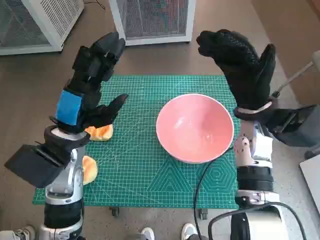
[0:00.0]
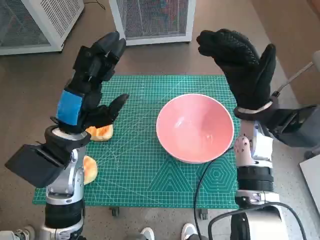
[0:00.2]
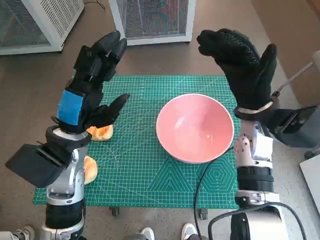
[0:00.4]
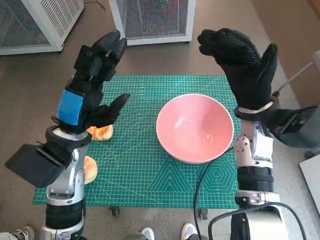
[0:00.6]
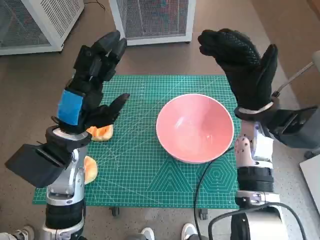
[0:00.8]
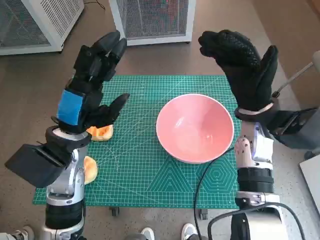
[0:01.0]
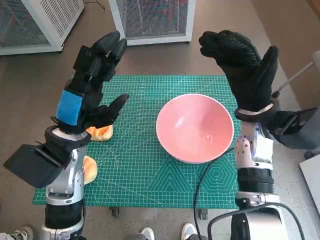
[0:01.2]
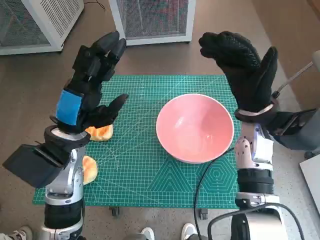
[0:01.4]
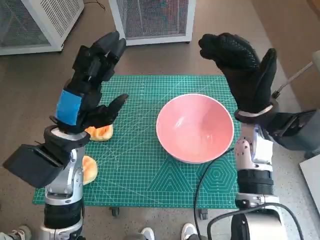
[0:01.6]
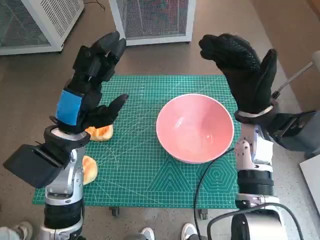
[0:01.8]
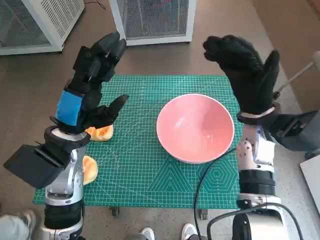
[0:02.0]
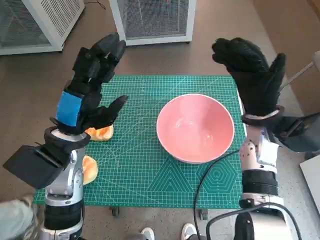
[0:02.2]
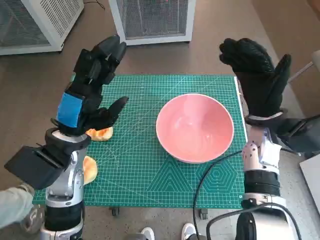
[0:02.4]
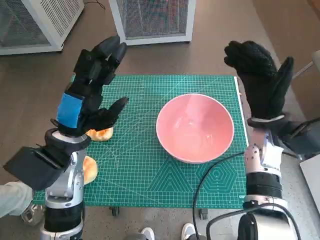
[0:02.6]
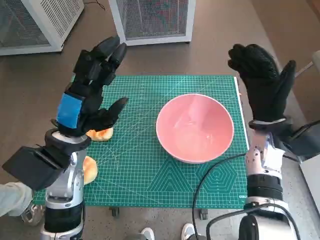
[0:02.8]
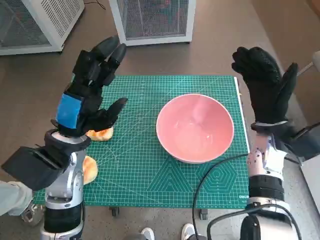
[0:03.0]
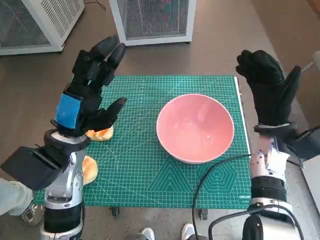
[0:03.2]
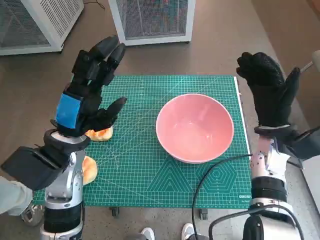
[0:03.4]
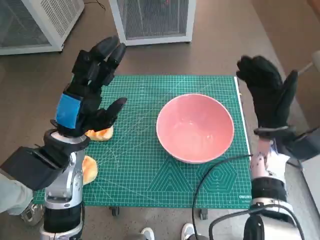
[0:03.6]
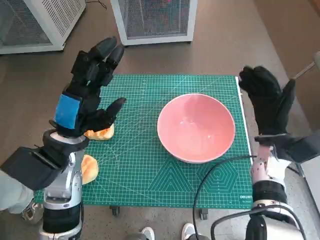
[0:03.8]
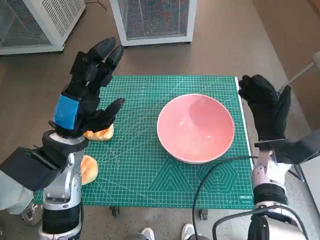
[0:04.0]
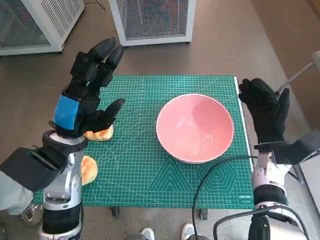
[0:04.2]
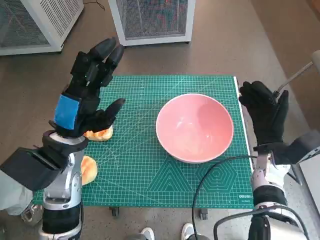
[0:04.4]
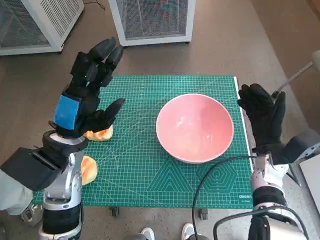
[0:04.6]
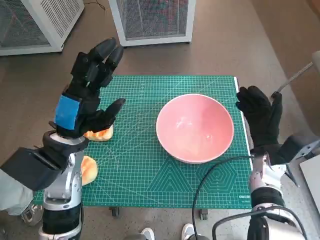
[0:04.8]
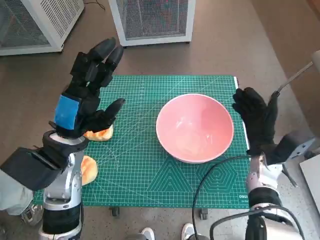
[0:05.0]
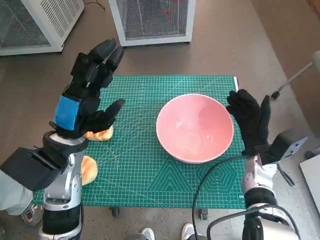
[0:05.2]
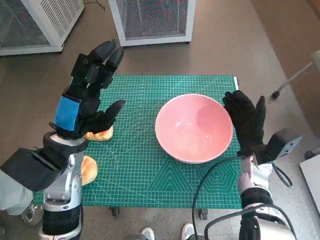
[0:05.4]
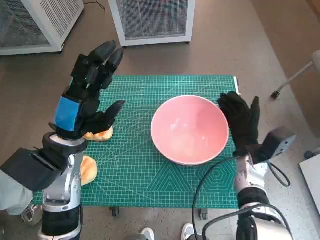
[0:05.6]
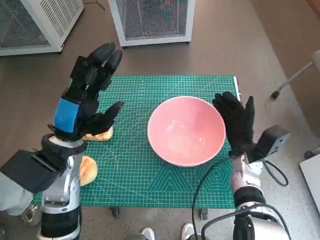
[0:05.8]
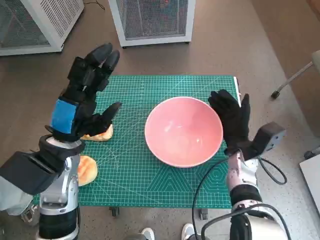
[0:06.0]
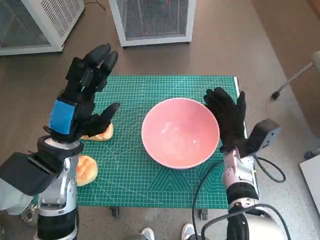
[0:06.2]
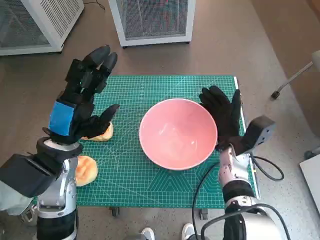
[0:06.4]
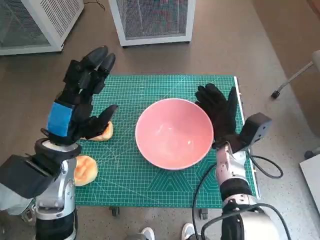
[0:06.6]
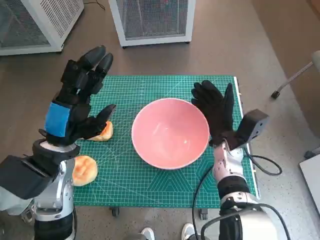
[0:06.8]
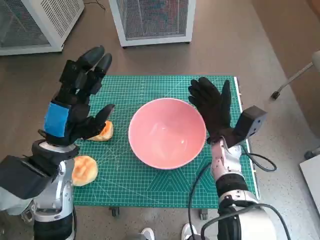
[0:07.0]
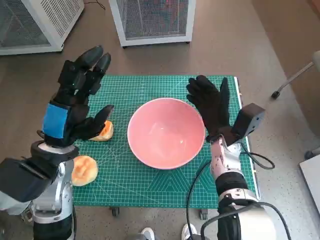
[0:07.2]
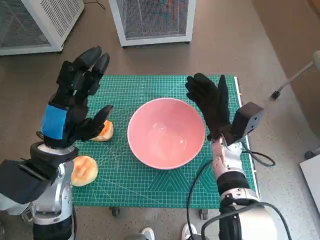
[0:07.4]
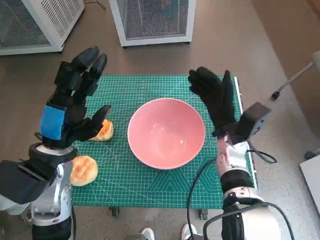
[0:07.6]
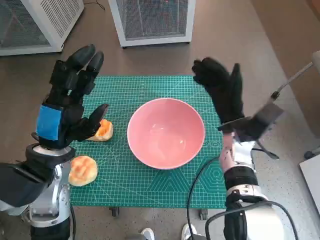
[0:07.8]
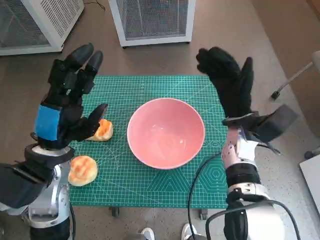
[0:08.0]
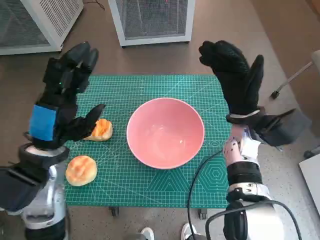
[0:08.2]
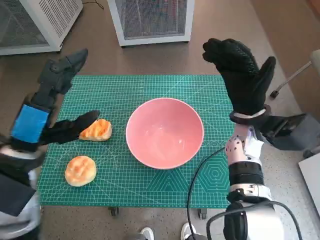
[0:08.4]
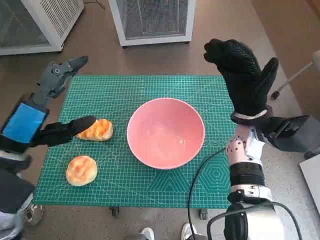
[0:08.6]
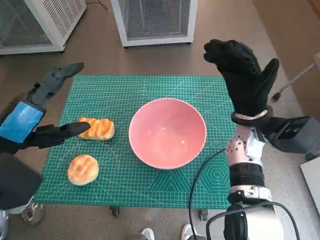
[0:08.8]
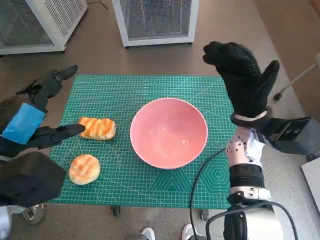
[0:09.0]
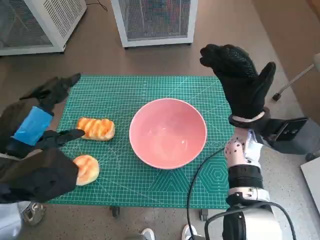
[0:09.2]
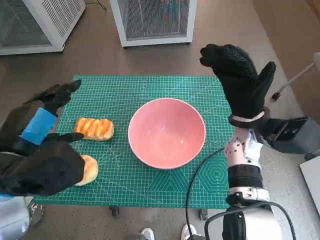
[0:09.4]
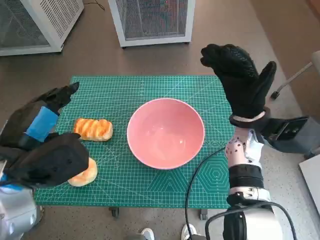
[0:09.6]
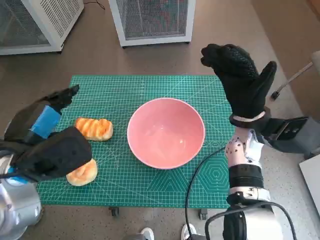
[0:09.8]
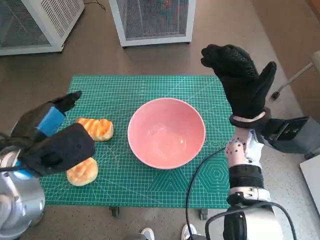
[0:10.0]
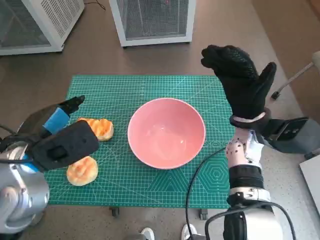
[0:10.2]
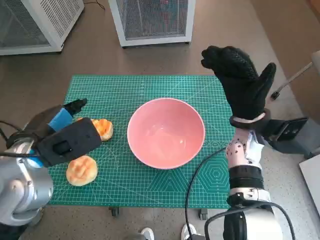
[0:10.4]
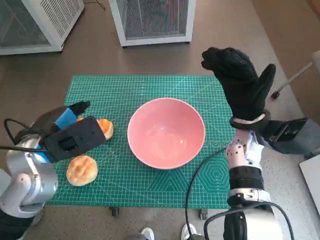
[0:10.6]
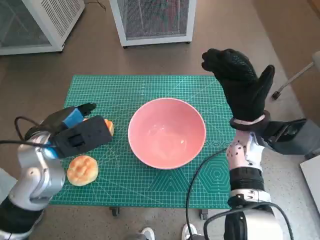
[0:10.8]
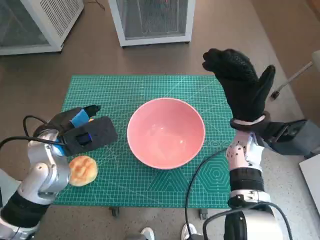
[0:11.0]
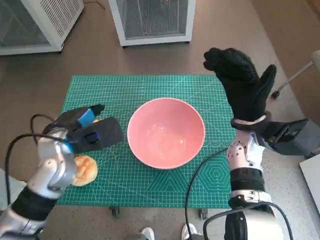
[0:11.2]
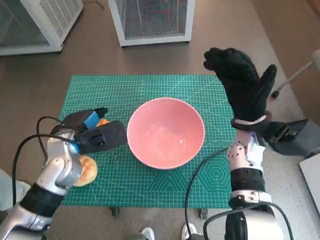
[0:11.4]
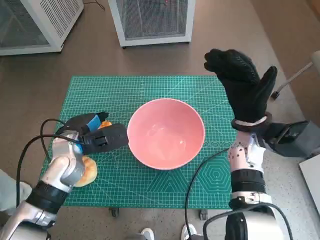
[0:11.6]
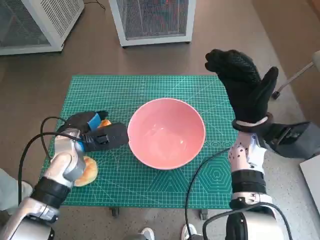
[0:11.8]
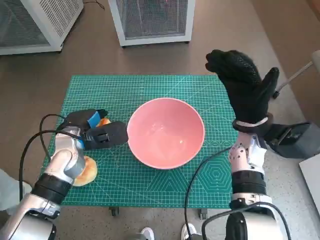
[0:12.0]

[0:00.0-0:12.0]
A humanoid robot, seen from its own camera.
Task of the whole recording: Push the bowl into the center of the table and put the bread into the bowl.
Step, 0:00.0 to 0:07.4: Move the pink bowl to the center of table with right hand.
0:01.6 to 0:03.0: The right hand ends up about 5 cm from where it was.
0:03.0 to 0:04.4: The right hand shifts roughly 5 cm downward.
0:04.4 to 0:06.0: The right hand goes about 5 cm to the left.
0:06.0 to 0:07.6: The right hand changes place by some 5 cm.
0:07.6 to 0:09.0: The left hand shifts some 10 cm upward and backward, while the right hand goes about 5 cm upward.
0:09.0 to 0:10.4: The left hand moves about 5 cm.
0:10.4 to 0:12.0: The left hand travels downward and forward by about 10 cm.

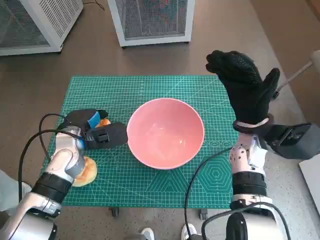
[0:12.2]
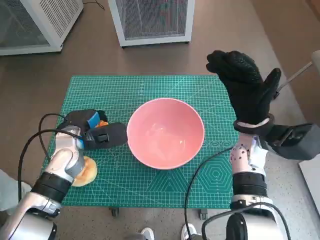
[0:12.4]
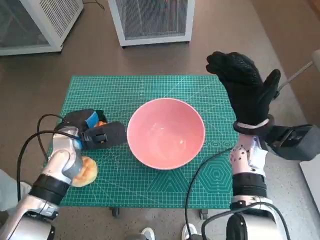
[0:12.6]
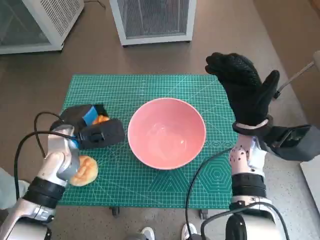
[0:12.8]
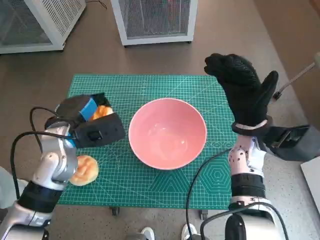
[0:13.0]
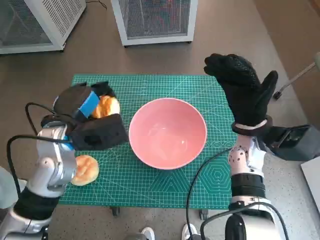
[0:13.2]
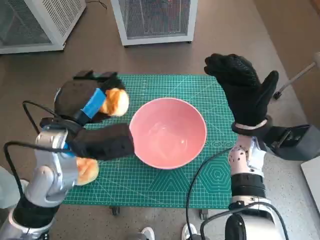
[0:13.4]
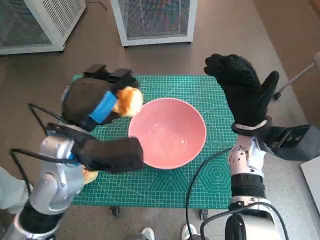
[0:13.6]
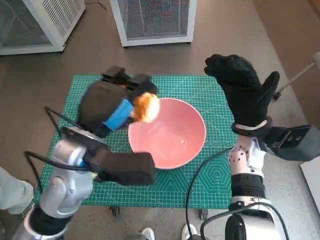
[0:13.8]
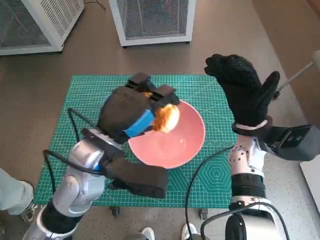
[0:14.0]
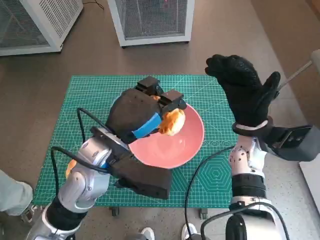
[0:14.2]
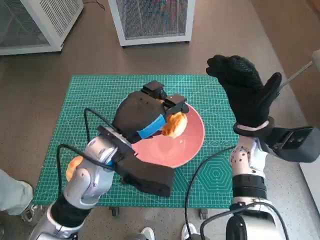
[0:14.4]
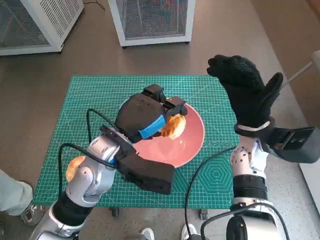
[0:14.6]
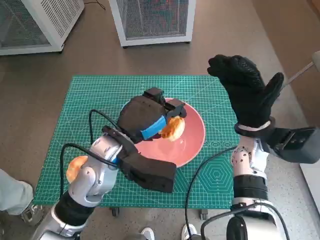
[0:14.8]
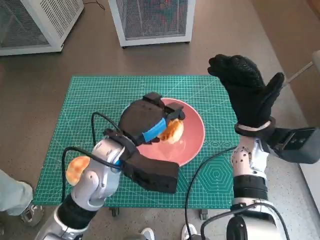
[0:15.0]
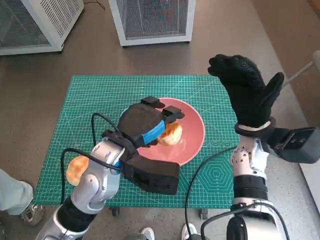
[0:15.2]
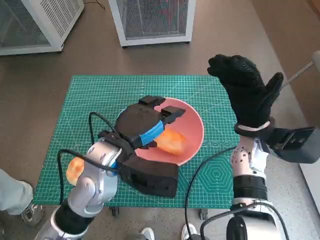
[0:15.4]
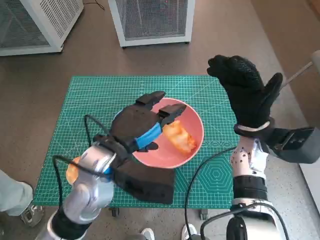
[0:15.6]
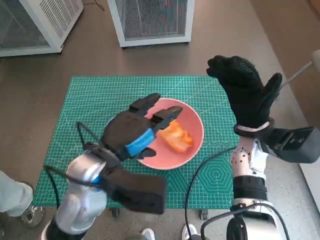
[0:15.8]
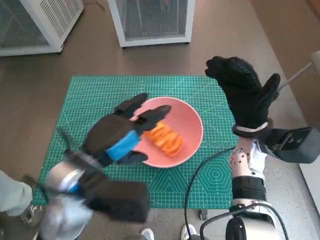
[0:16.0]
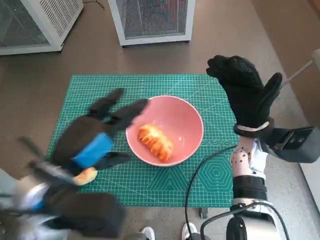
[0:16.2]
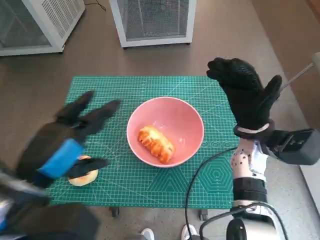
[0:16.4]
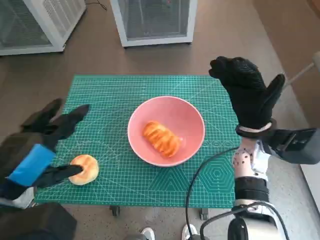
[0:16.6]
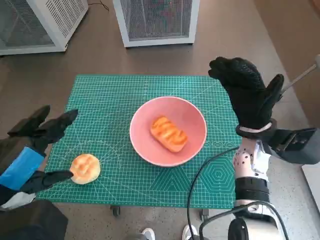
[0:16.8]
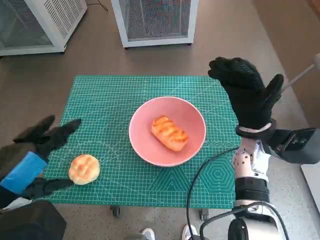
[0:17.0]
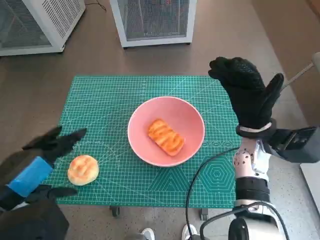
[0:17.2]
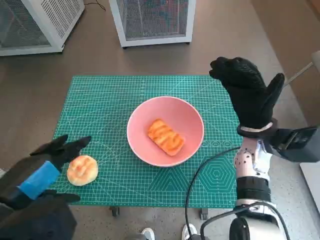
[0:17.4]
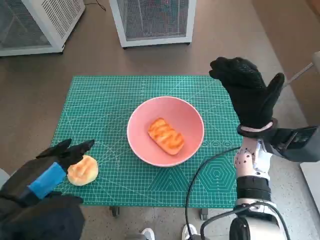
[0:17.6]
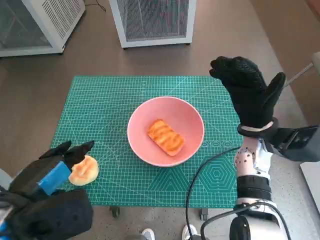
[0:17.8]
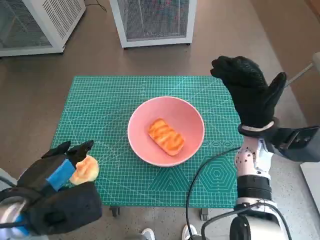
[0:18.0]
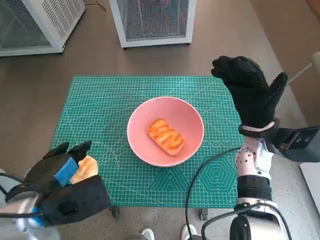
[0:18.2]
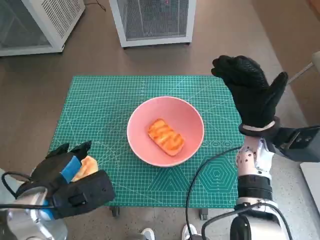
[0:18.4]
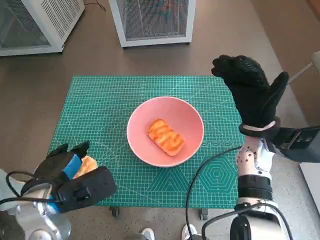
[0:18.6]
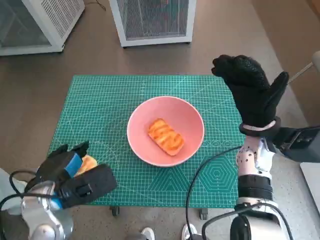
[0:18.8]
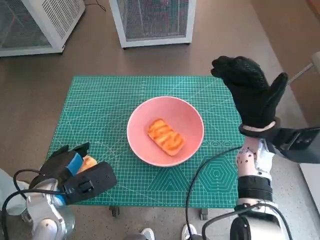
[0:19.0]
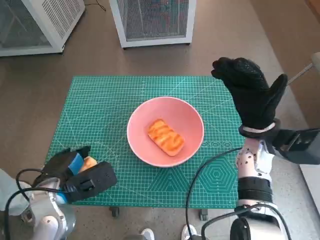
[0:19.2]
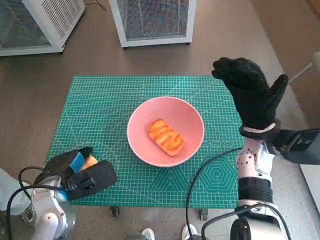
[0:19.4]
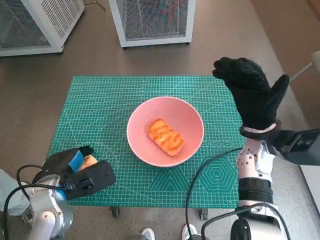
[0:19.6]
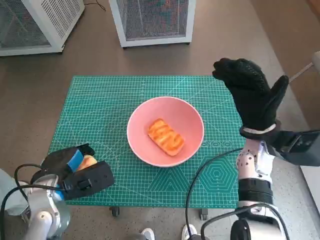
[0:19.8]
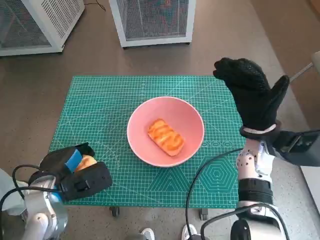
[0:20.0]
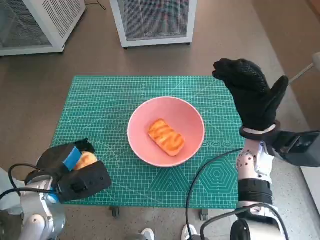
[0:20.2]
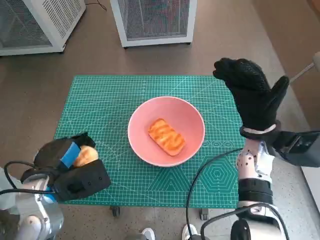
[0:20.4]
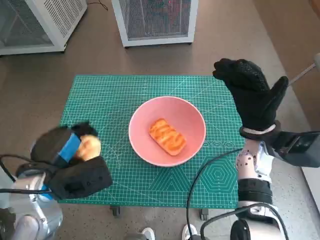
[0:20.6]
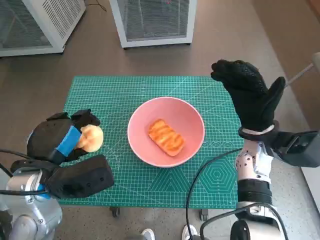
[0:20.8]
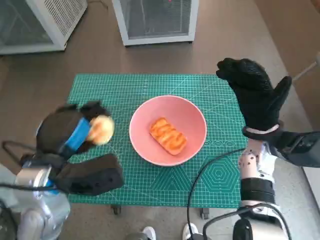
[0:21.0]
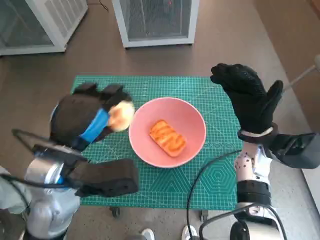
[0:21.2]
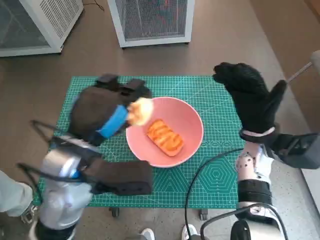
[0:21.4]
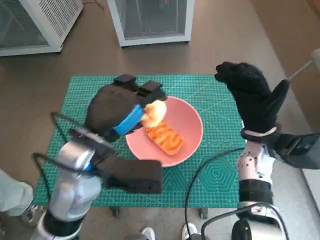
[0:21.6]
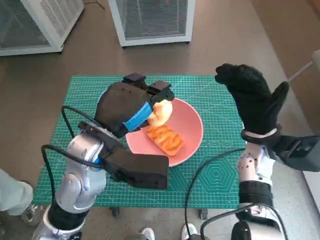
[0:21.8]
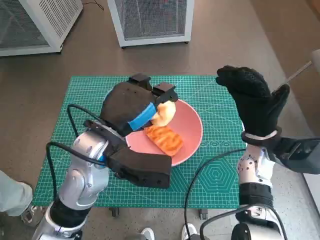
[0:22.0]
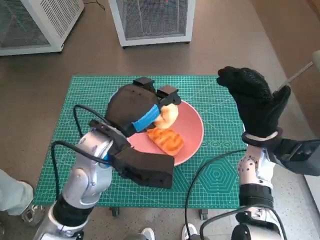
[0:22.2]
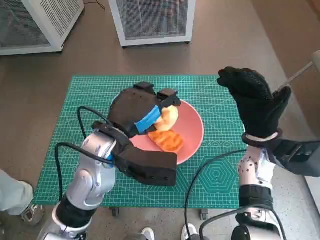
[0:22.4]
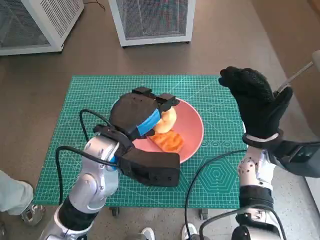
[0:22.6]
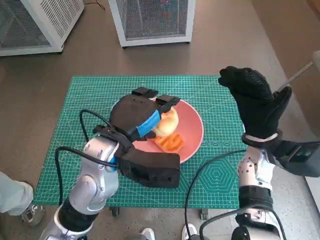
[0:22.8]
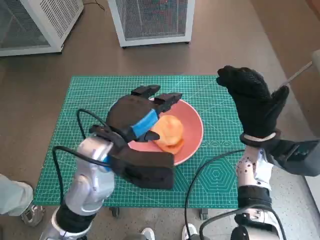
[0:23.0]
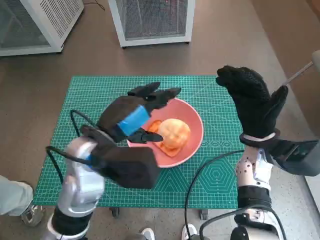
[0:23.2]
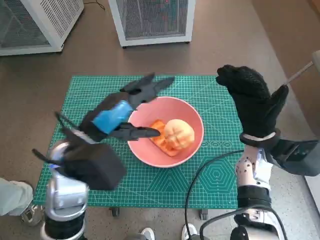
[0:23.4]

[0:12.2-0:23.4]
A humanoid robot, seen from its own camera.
Task of the whole recording: Push the bowl into the center of the table and put the bread into the bowl.
Step, 0:12.2 to 0:15.2: Place the long bread in pink bowl with left hand.
Step, 0:15.4 to 0:19.8: Grasp the round bread with left hand.
Step, 0:20.0 to 0:22.8: Place the round bread in pink bowl with left hand.
0:12.2 to 0:13.8: The left hand heads upward, to the right and backward, covering approximately 15 cm.
0:13.8 to 0:15.4: The left hand shifts by about 5 cm.
0:15.4 to 0:17.0: The left hand shifts approximately 20 cm backward, to the left and upward.
0:17.0 to 0:18.6: The left hand goes about 10 cm downward and forward.
0:18.6 to 0:20.2: The hands stay close to where they were, moving slightly.
0:20.2 to 0:21.8: The left hand heads to the right and upward, covering roughly 15 cm.
